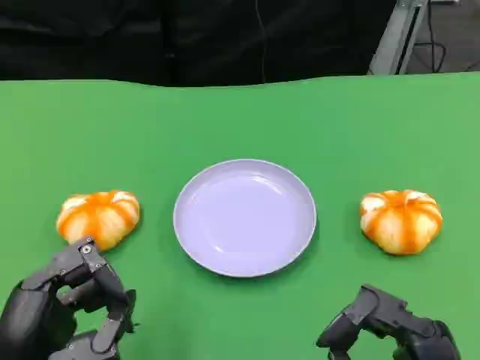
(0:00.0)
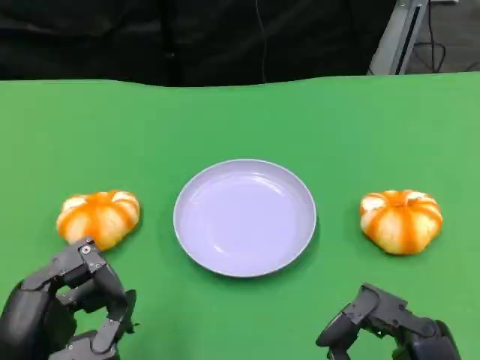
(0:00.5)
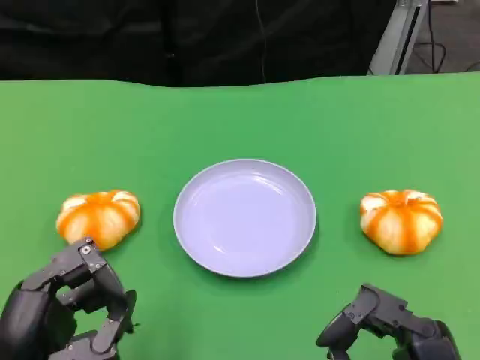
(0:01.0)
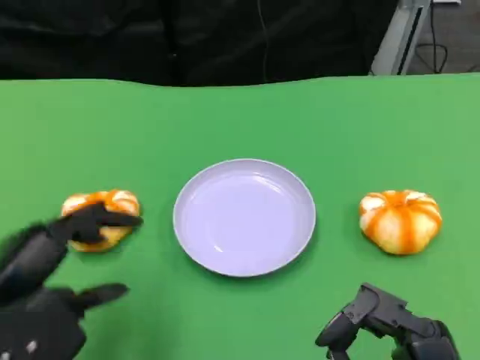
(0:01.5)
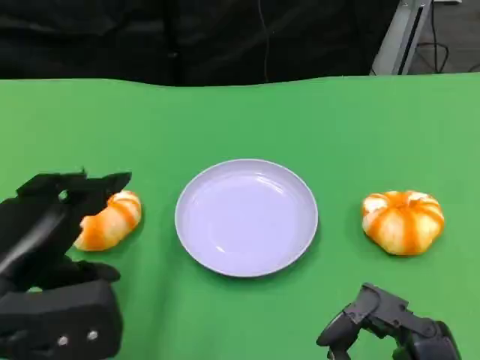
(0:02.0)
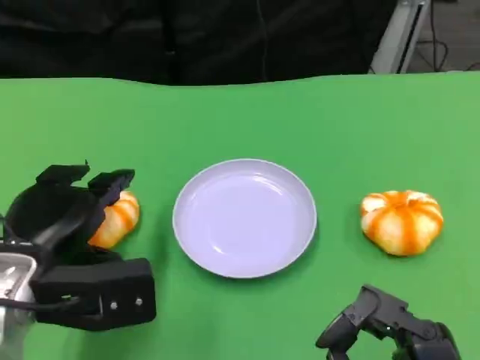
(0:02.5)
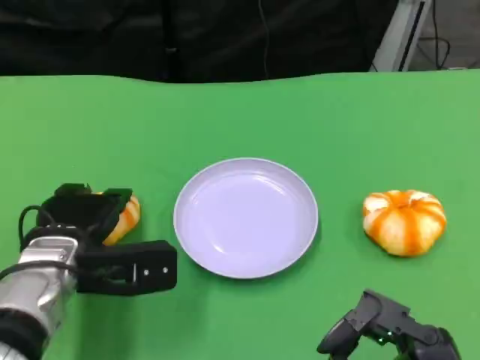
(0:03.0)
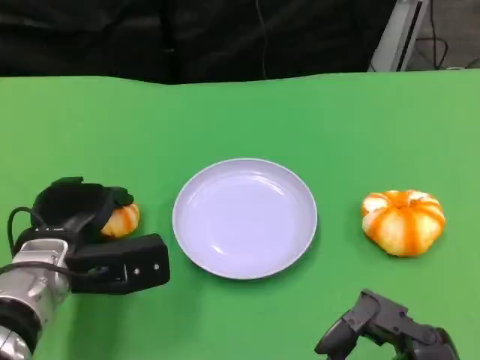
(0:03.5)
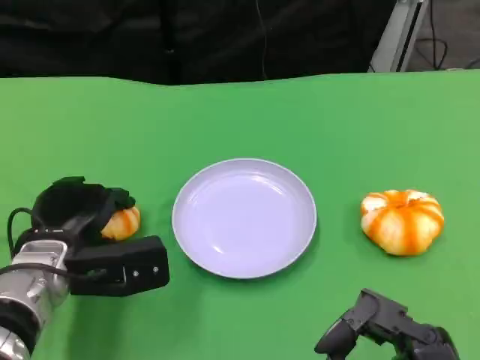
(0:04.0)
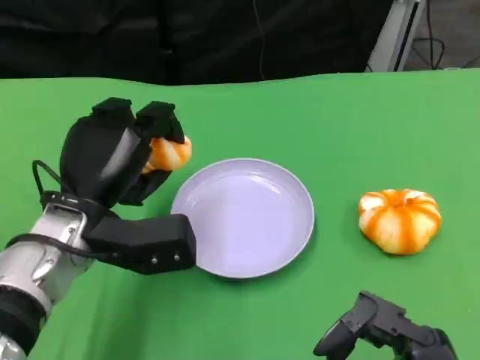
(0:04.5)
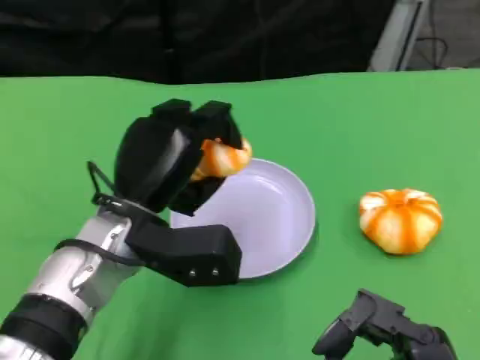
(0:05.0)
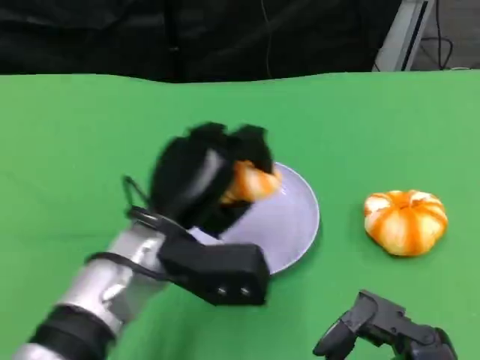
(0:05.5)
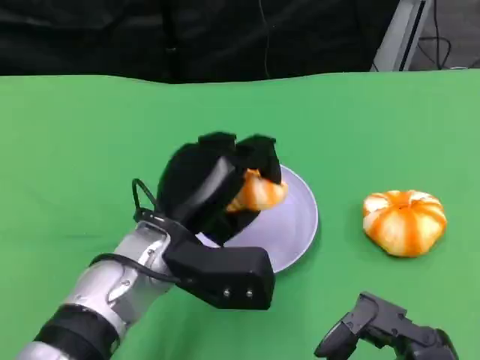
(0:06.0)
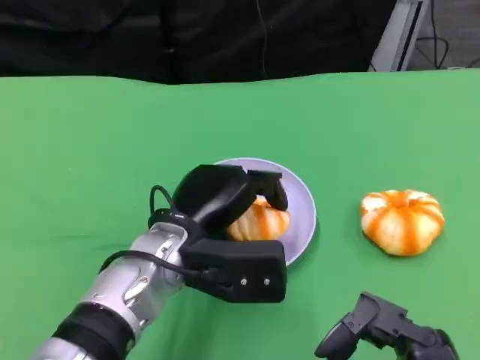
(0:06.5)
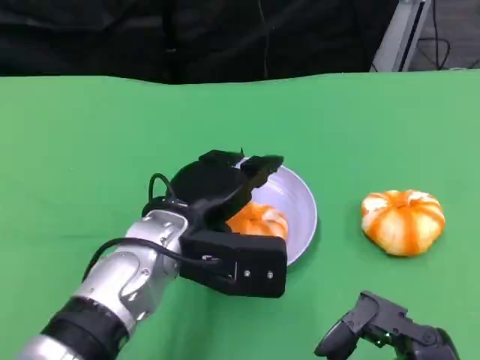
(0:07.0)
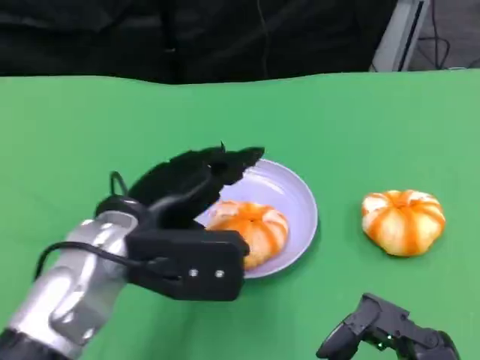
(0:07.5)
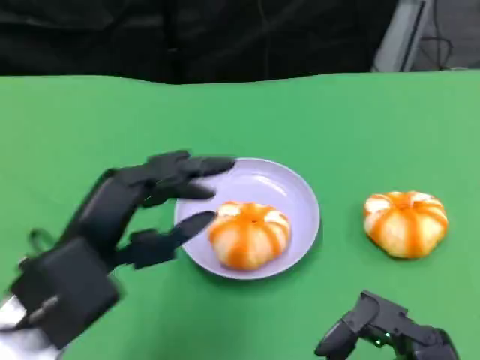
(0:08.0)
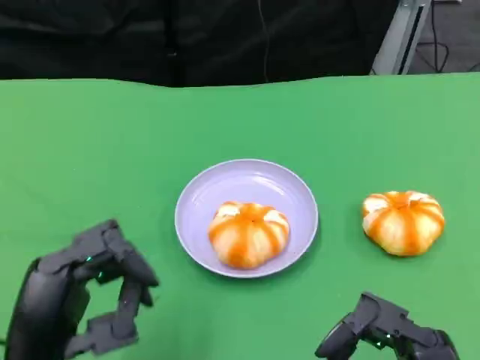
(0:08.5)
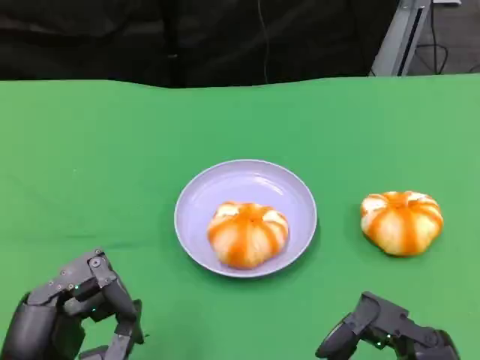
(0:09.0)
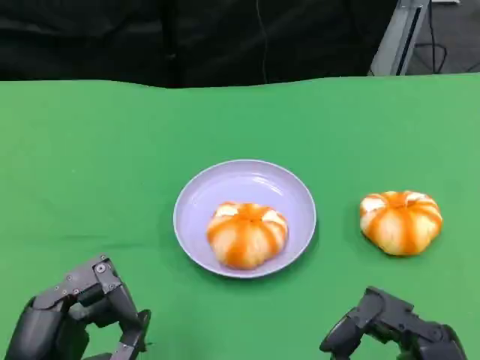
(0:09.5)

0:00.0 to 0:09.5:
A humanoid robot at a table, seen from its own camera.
Task of the whole recording: Grasp the bread from the table and place it into the plate.
0:00.0 to 0:02.0: The left hand heads forward, covering roughly 5 cm.
0:02.0 to 0:04.0: The left hand moves forward and downward, some 10 cm.
0:04.0 to 0:05.5: The left hand moves to the right and upward, some 10 cm.
0:05.5 to 0:07.5: The left hand ends up approximately 5 cm from where it was.
0:07.5 to 0:09.5: The left hand travels backward, to the left and downward by about 15 cm.

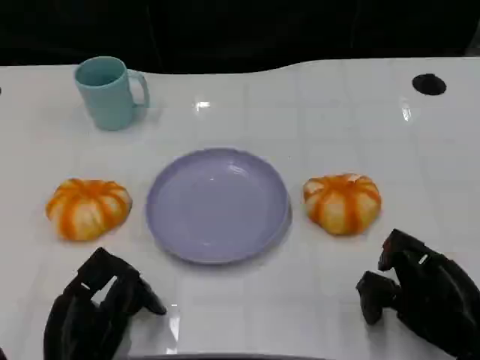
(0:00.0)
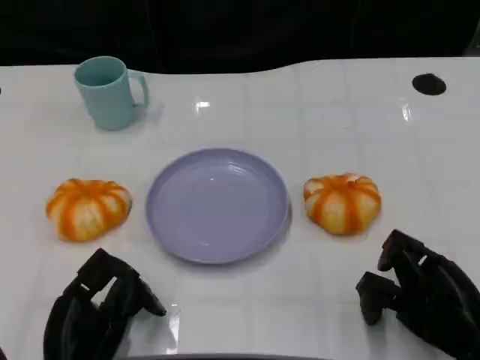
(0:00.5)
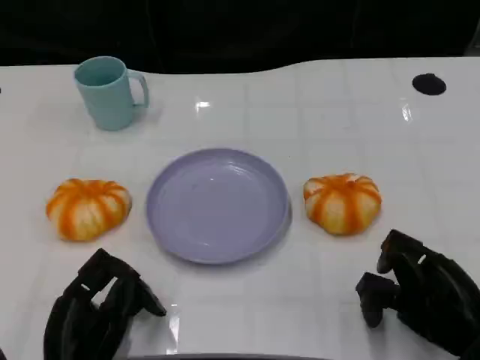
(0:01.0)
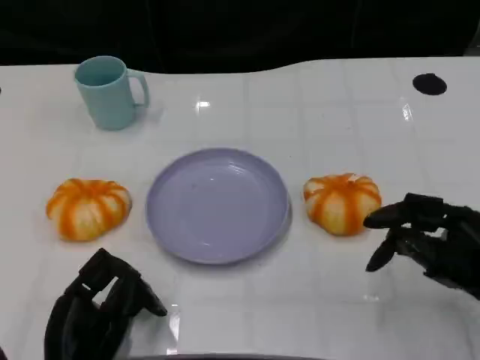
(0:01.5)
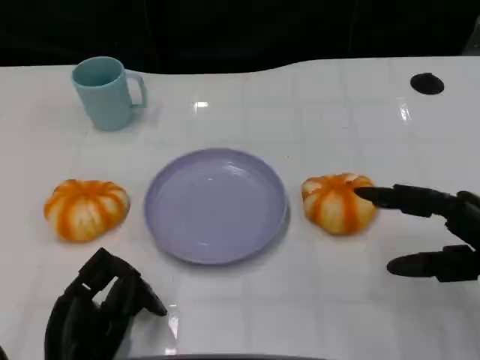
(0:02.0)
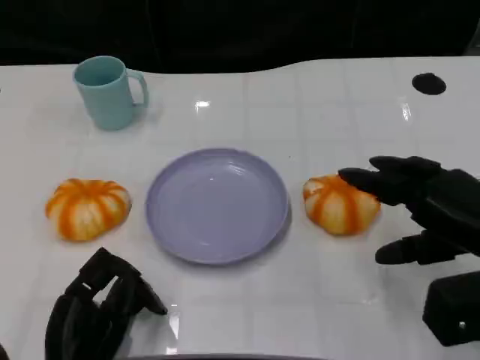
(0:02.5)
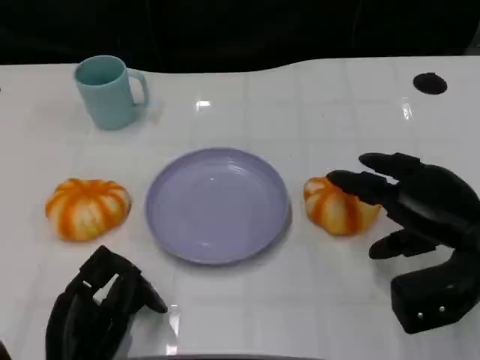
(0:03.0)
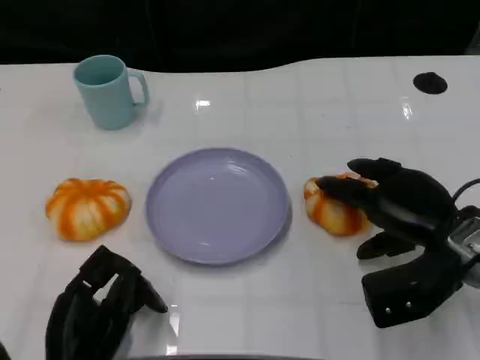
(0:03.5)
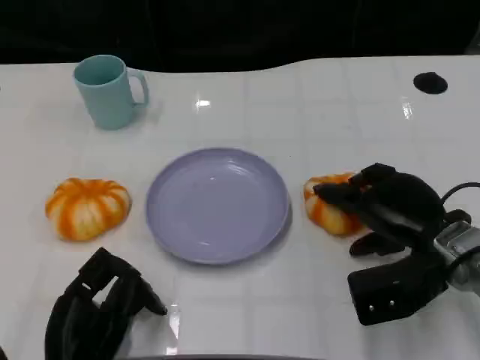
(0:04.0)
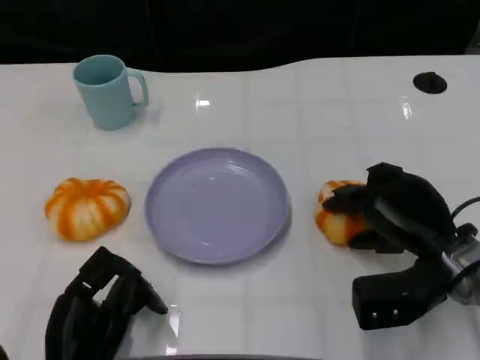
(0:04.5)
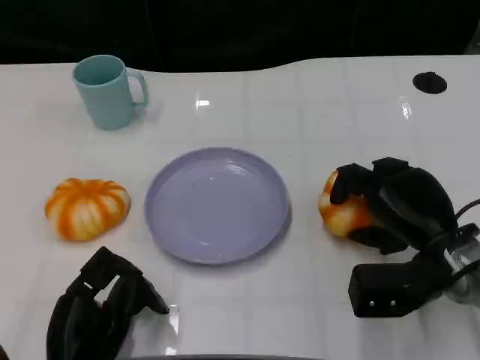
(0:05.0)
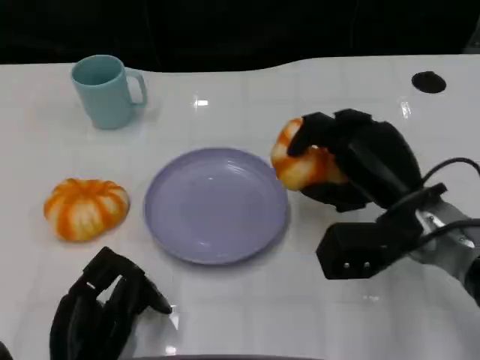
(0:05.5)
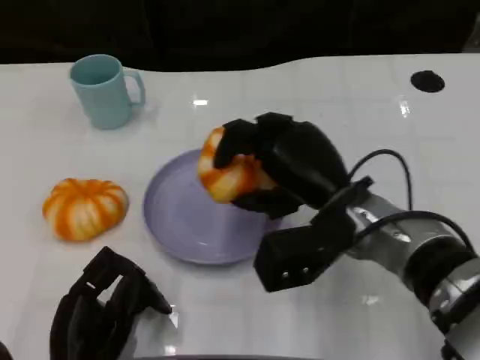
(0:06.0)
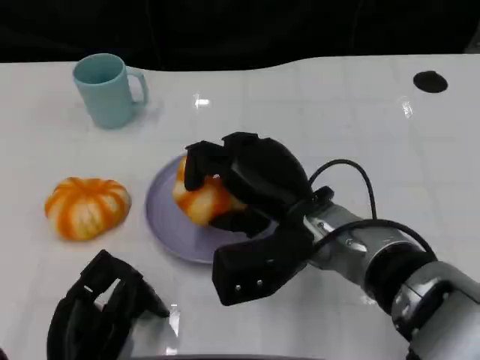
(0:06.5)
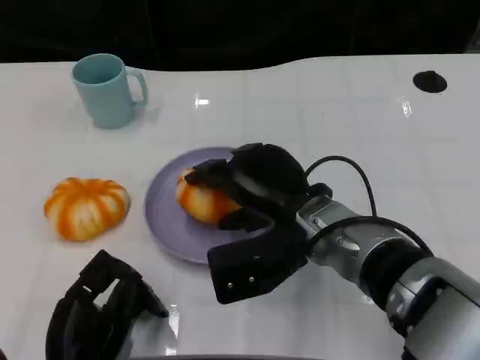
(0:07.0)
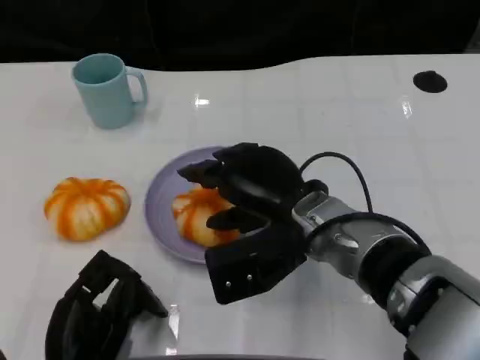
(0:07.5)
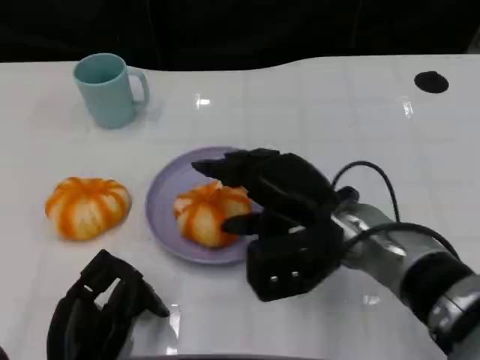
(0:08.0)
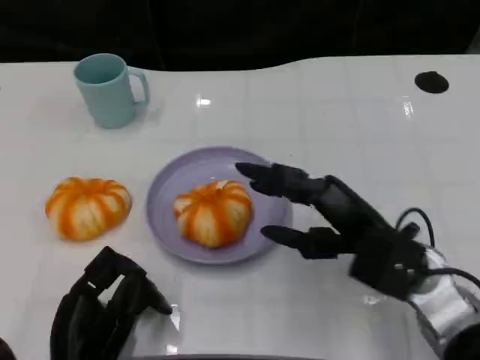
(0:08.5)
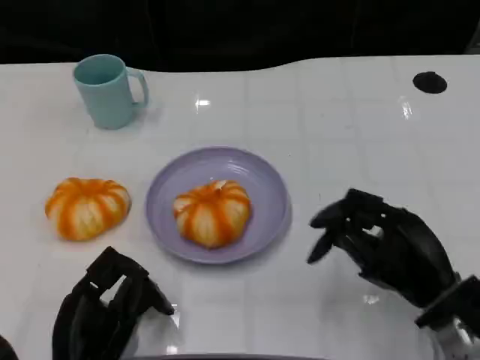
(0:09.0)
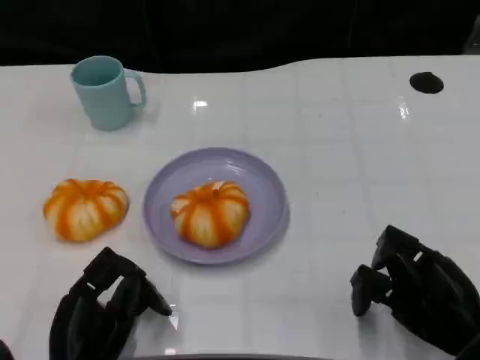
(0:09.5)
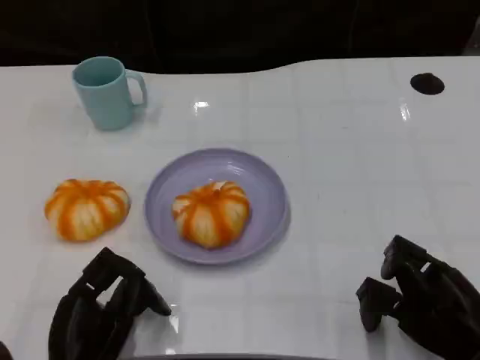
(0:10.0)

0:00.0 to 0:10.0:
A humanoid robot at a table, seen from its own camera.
Task of the whole recording: Grasp the bread from the table and place it into the plate.
0:00.0 to 0:02.0: The right hand travels upward by some 10 cm.
0:02.0 to 0:04.0: The right hand is displaced to the left and forward by approximately 10 cm.
0:04.0 to 0:06.0: The right hand shifts about 10 cm to the left.
0:08.0 to 0:10.0: The right hand heads to the right, backward and downward, covering roughly 20 cm.

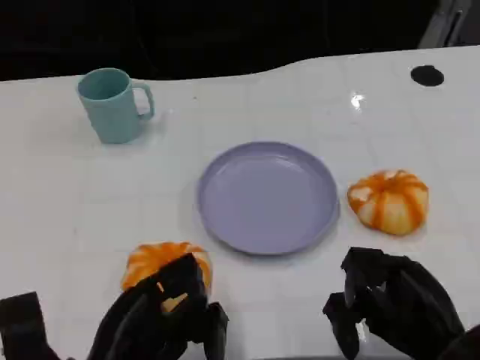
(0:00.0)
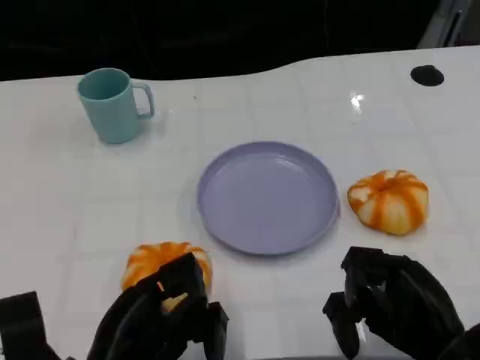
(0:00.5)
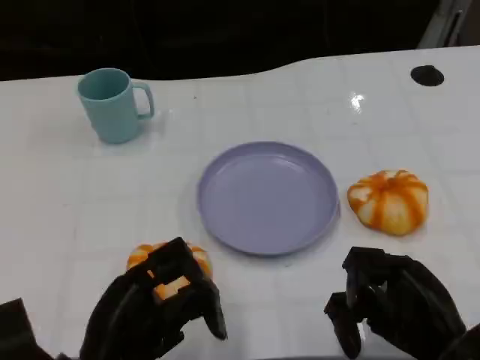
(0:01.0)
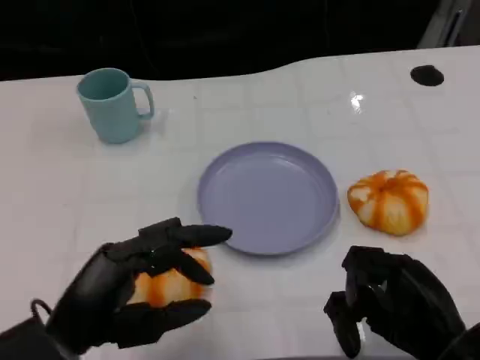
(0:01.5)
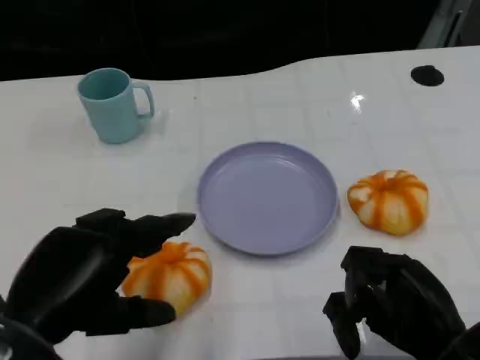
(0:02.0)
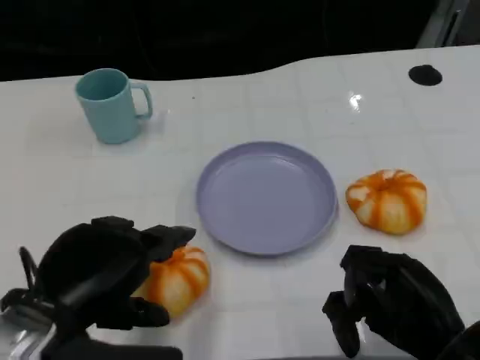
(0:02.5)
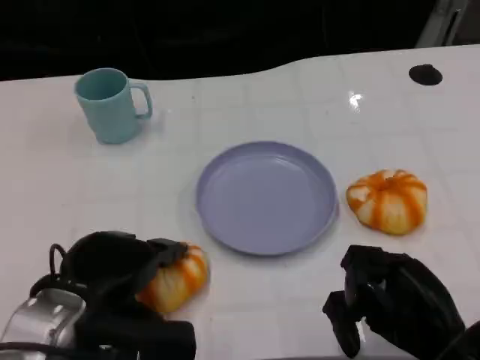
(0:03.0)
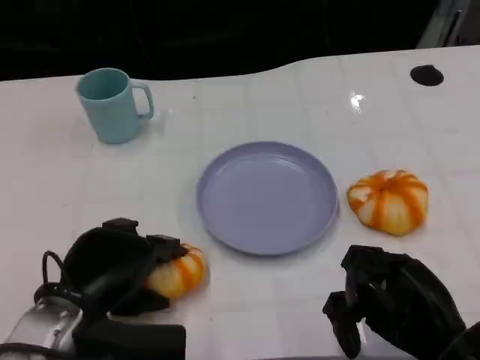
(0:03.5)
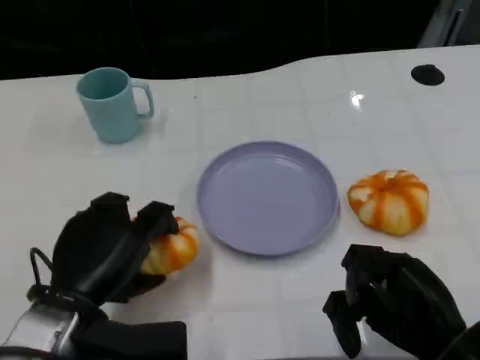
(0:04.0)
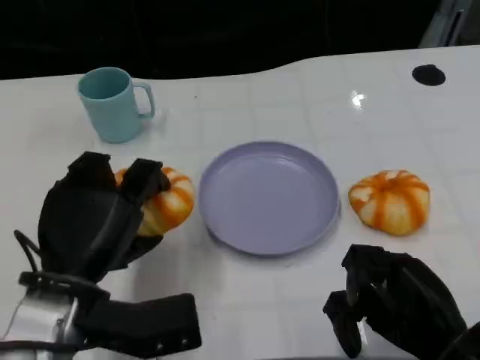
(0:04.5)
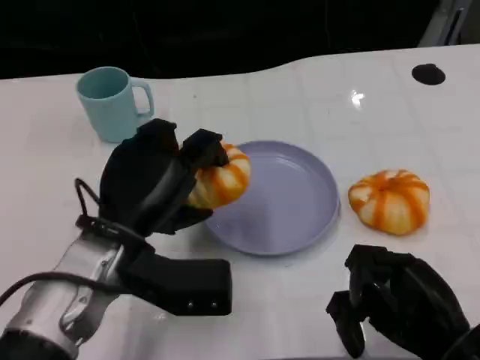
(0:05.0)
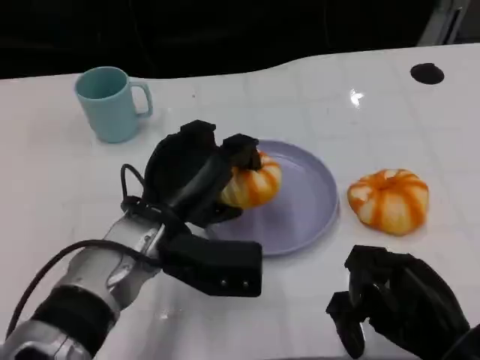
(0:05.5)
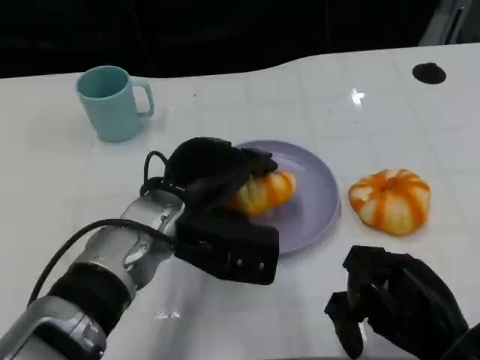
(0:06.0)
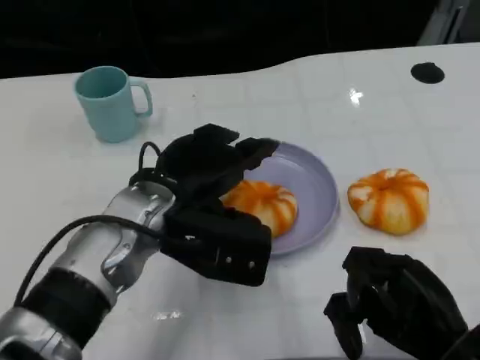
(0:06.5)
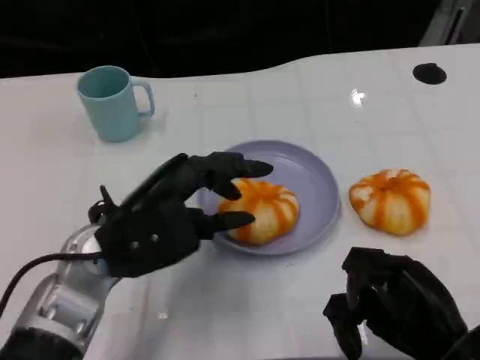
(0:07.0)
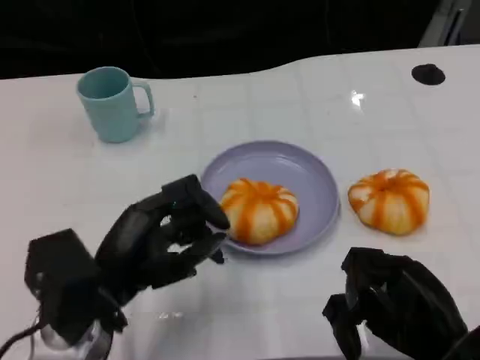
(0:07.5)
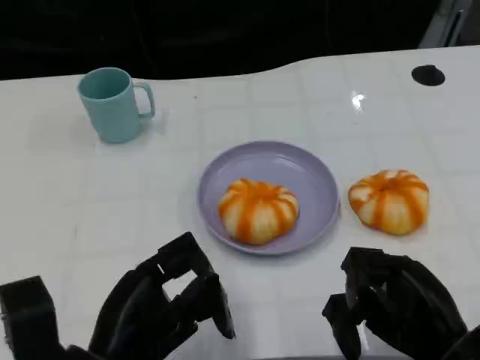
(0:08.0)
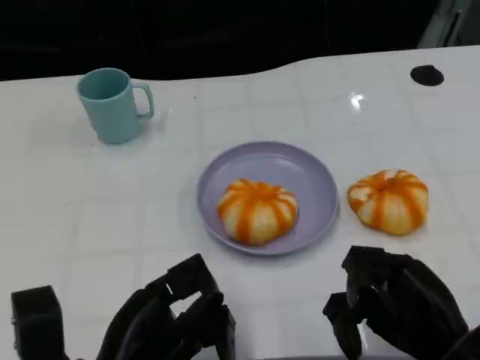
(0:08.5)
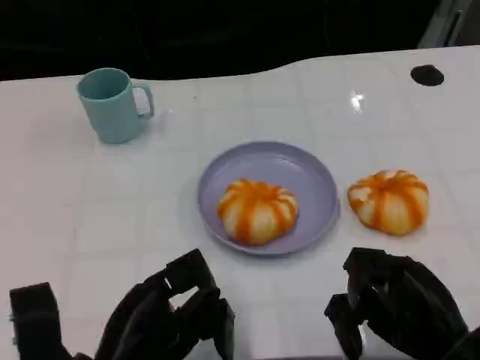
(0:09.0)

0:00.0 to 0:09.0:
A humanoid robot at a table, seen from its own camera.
Task of the whole recording: Grasp the bread from the table and place it into the plate.
0:00.0 to 0:02.0: The left hand goes approximately 10 cm upward.
0:02.0 to 0:04.5: The left hand goes some 5 cm forward.
0:04.5 to 0:07.0: The left hand goes to the right and returns, about 10 cm each way.
0:07.0 to 0:09.0: The left hand travels backward and downward by roughly 10 cm.
